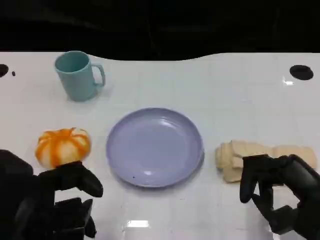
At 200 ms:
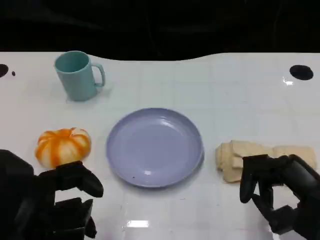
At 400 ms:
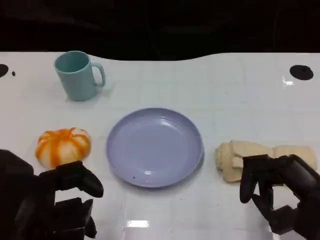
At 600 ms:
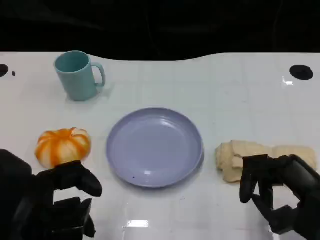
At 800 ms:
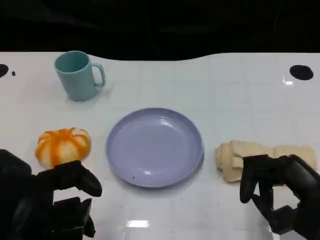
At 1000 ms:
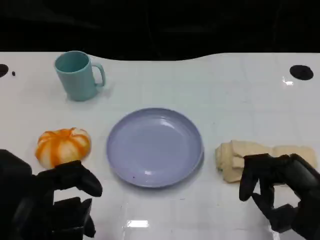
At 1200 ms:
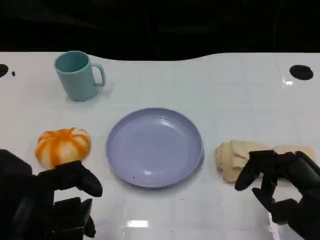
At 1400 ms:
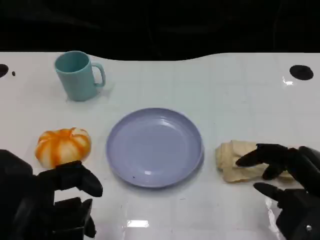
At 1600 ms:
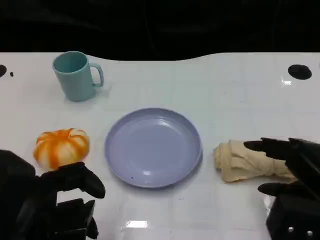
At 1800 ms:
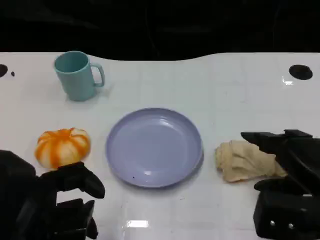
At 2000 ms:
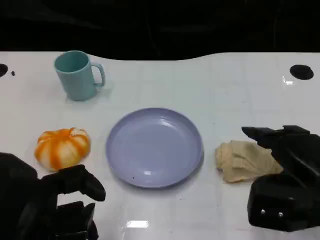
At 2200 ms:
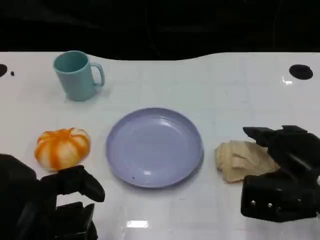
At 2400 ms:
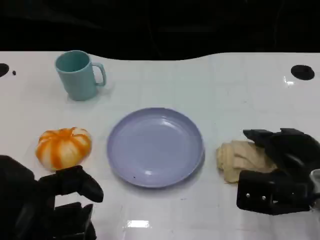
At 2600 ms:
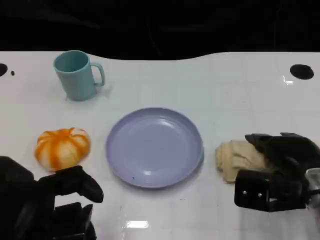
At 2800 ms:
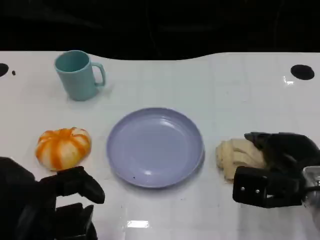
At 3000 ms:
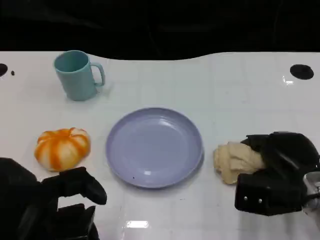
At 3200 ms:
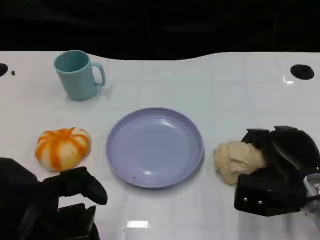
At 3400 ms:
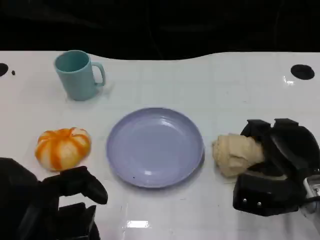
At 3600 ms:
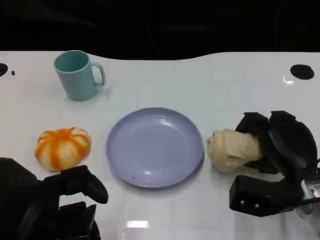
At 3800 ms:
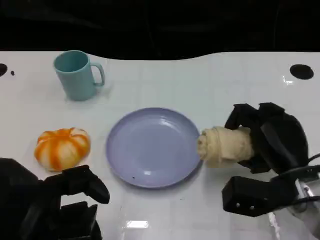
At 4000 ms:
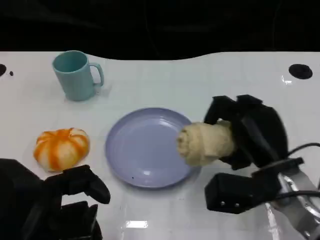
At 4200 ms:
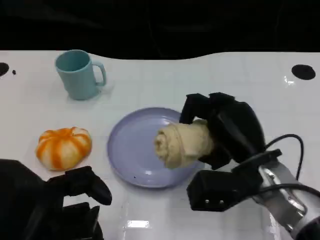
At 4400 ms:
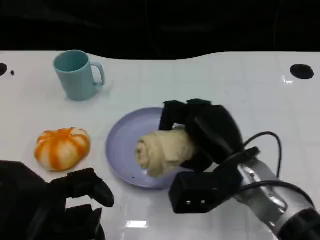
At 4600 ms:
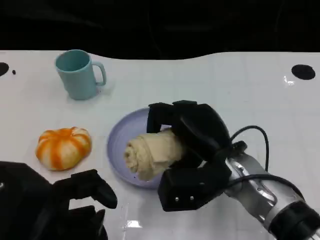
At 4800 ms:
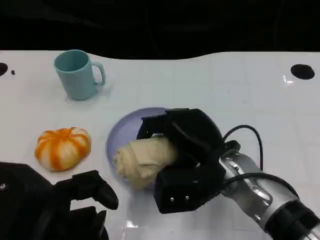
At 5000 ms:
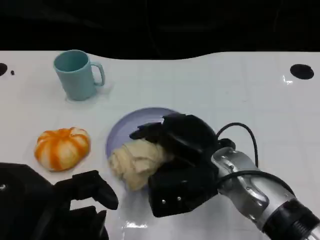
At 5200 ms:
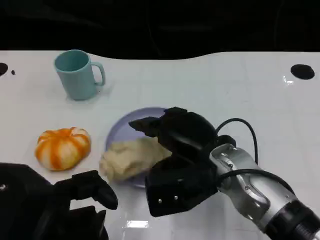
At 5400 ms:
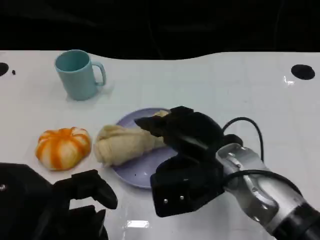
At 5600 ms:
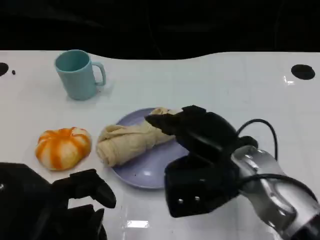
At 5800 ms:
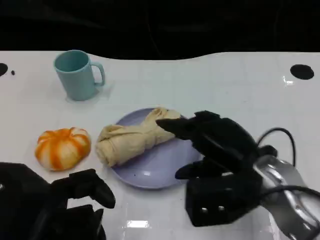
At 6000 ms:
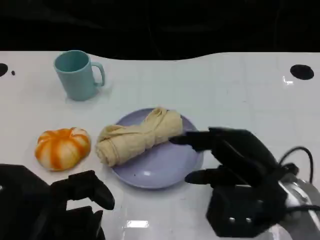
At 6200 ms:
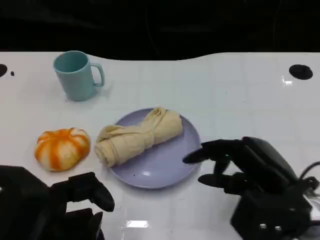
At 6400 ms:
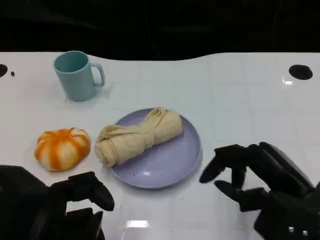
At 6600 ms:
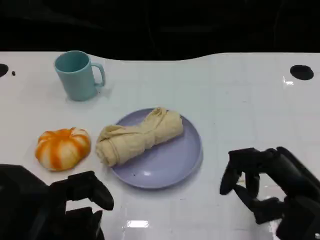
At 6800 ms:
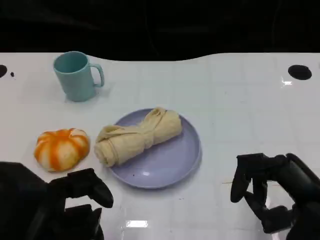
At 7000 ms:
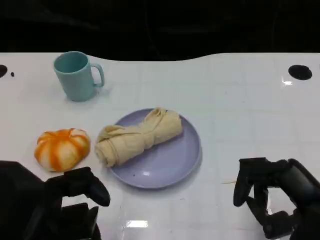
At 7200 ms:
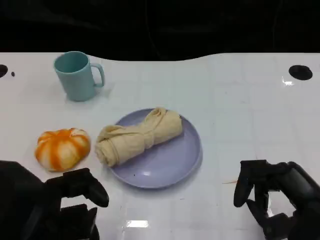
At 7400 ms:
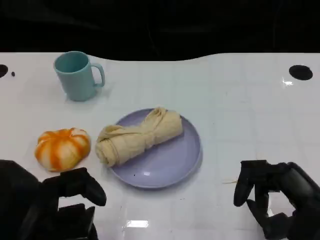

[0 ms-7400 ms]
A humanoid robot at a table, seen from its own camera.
Task of the whole recording: Grasp the towel on the left side of the plate with the left hand and place it into the plate.
1400 ms to 3000 ms: The right hand moves forward and downward, approximately 10 cm.
3000 ms to 4400 ms: The right hand moves to the left, approximately 10 cm.
4400 ms to 6000 ms: The right hand is displaced to the right by some 5 cm.
6000 ms to 7400 ms: The right hand heads to the right and backward, covering about 10 cm.

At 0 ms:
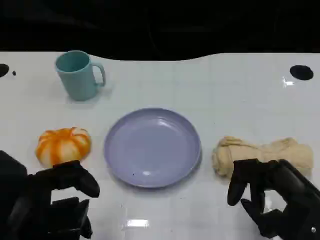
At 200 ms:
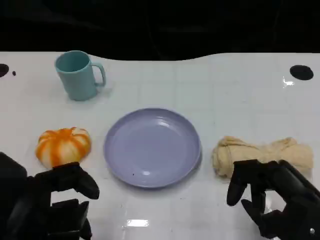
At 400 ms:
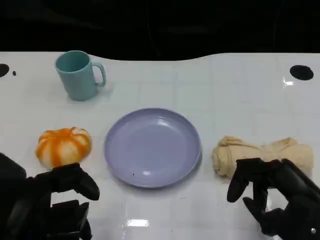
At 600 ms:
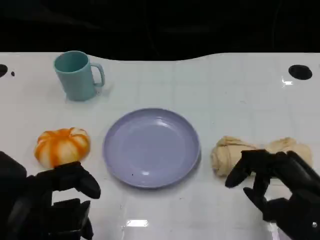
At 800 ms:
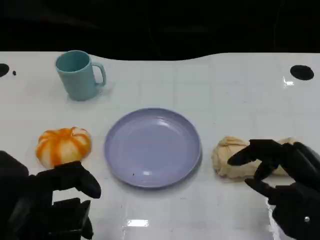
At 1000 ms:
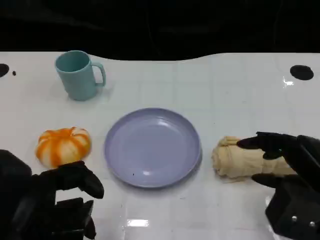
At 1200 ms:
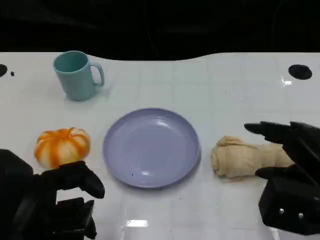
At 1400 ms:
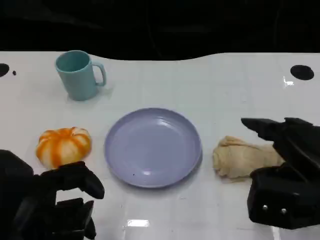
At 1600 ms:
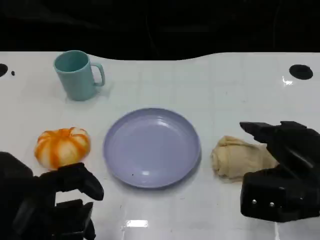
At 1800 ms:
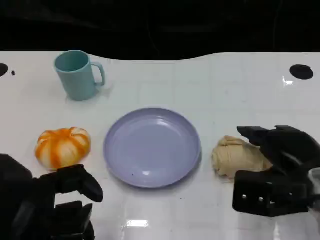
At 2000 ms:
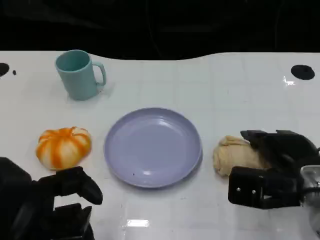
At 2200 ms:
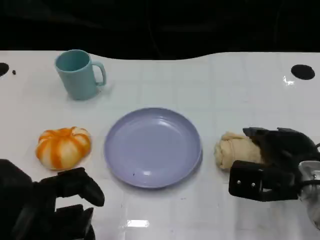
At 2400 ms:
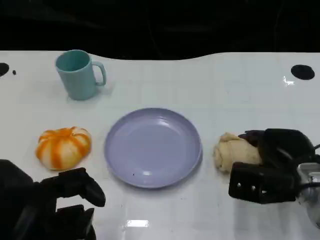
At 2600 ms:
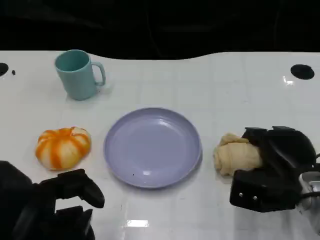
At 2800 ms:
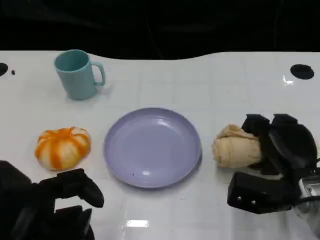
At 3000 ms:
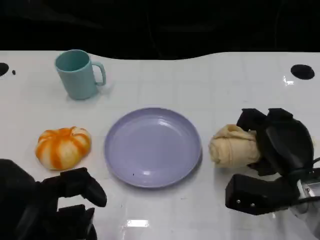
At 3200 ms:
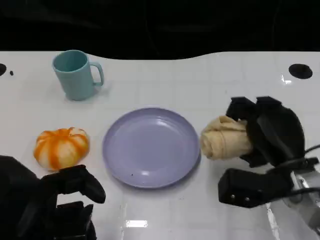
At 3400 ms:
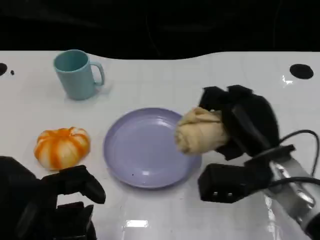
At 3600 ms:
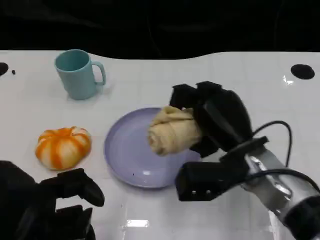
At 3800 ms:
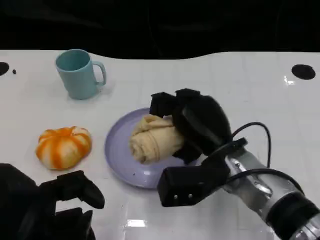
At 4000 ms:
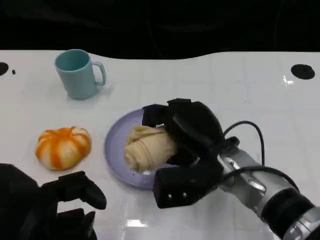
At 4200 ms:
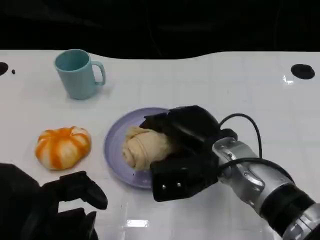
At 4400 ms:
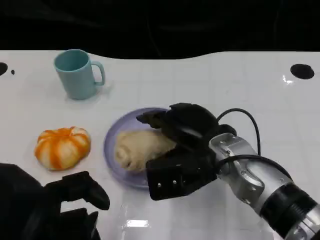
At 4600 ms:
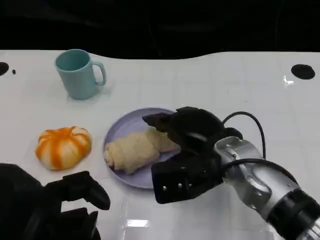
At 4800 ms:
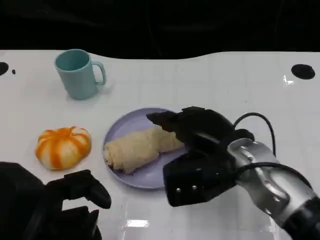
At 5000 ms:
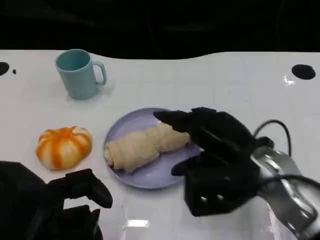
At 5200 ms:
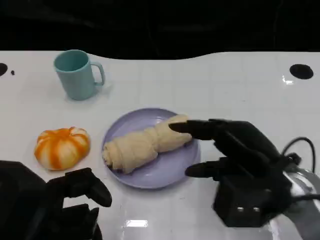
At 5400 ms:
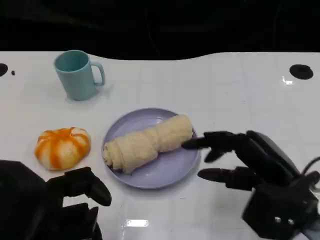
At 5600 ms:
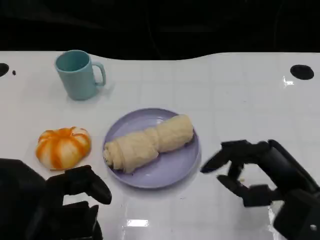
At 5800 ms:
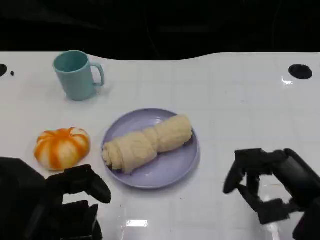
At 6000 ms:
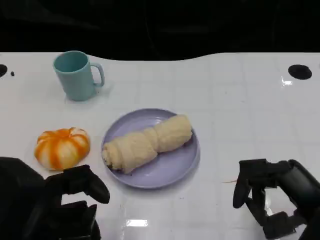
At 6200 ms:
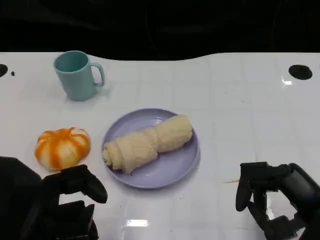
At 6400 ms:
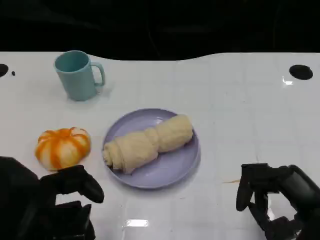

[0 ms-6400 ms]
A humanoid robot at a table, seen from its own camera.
Task of the whole recording: Grasp the towel on the left side of the plate with the left hand and place it into the plate.
0 ms to 1600 ms: The right hand goes some 5 cm forward.
1600 ms to 3200 ms: The right hand shifts by roughly 5 cm.
3200 ms to 4800 ms: The right hand shifts roughly 10 cm to the left and upward.
4800 ms to 6400 ms: The right hand is displaced to the right and backward by about 15 cm.
